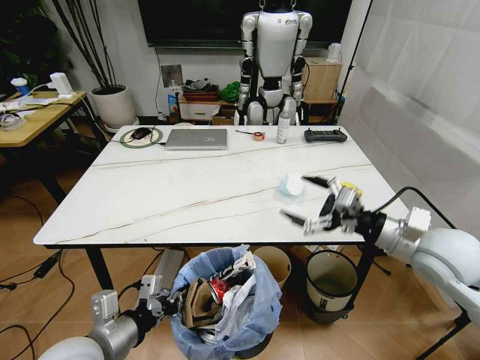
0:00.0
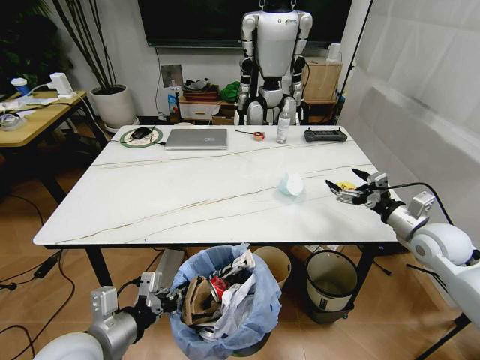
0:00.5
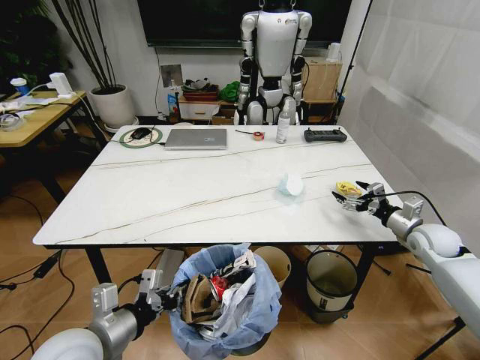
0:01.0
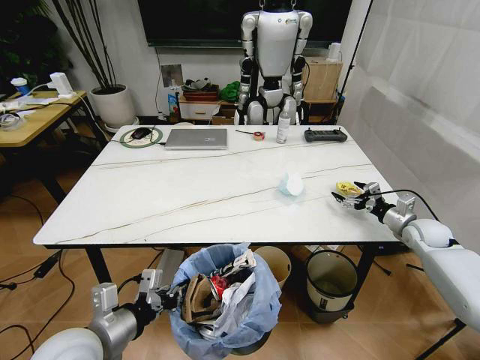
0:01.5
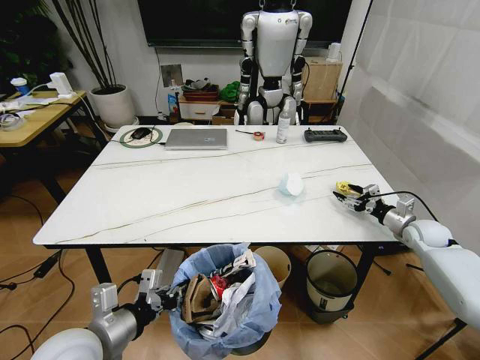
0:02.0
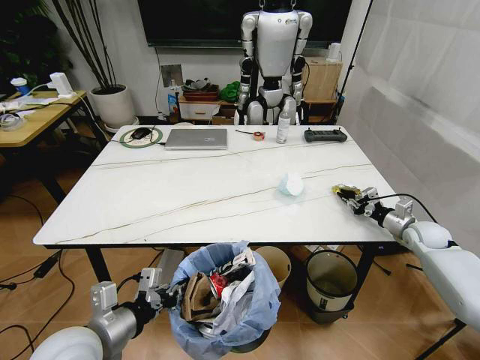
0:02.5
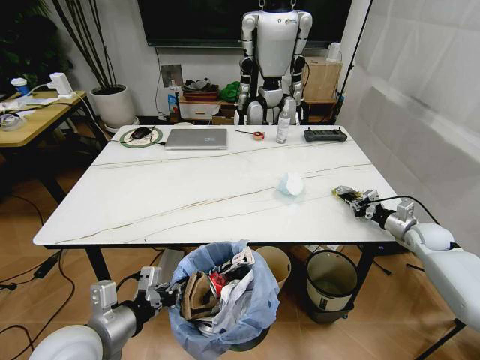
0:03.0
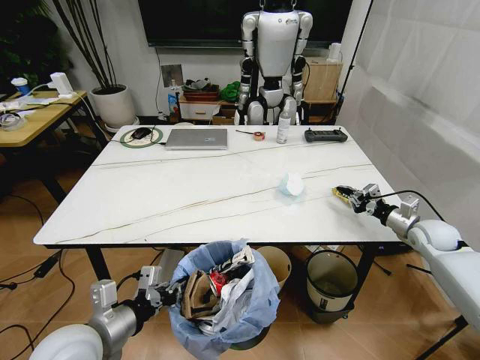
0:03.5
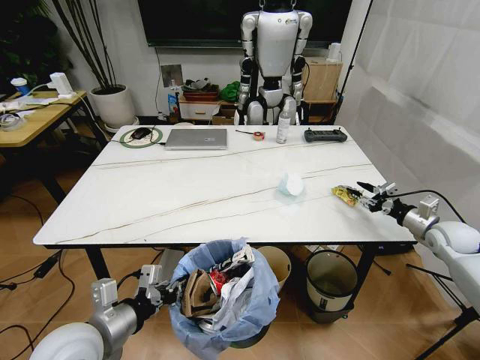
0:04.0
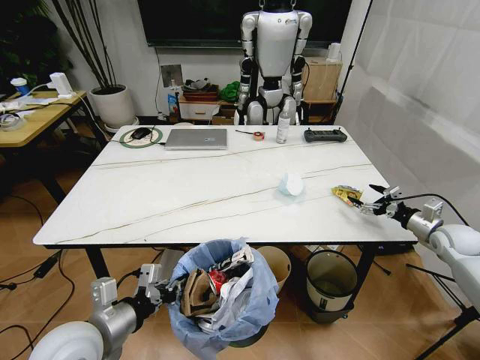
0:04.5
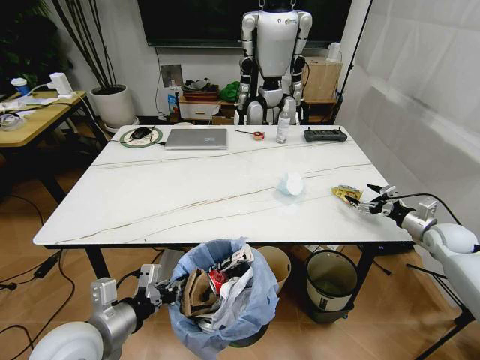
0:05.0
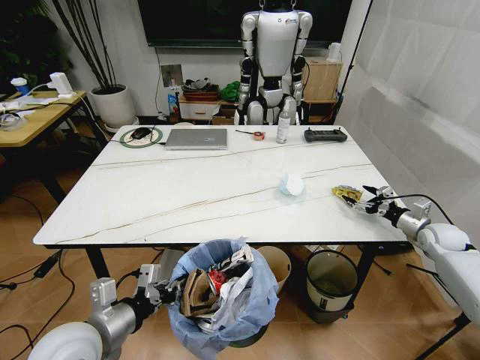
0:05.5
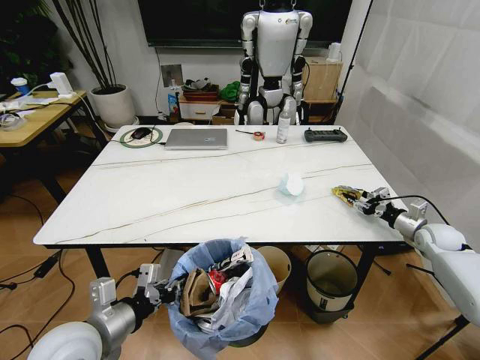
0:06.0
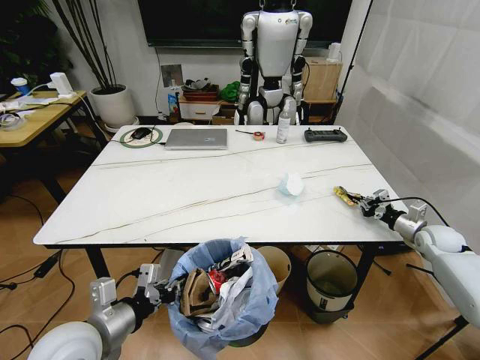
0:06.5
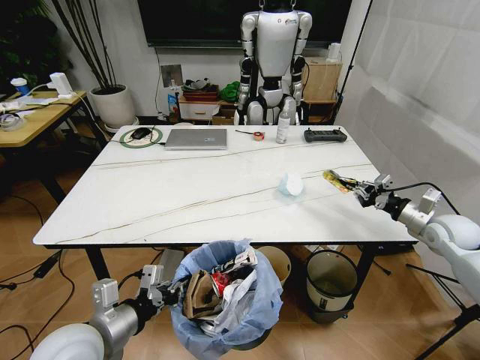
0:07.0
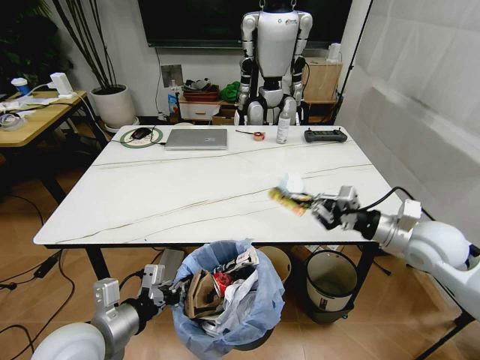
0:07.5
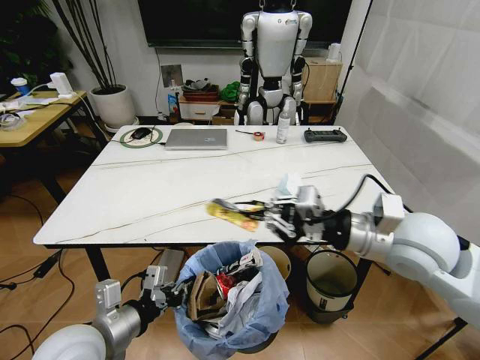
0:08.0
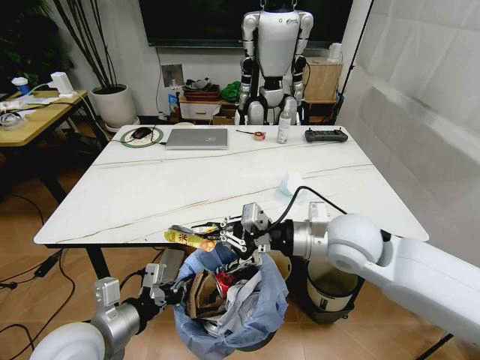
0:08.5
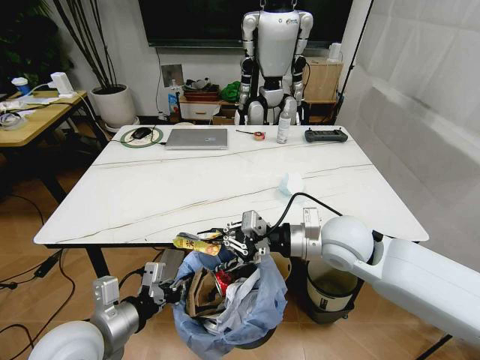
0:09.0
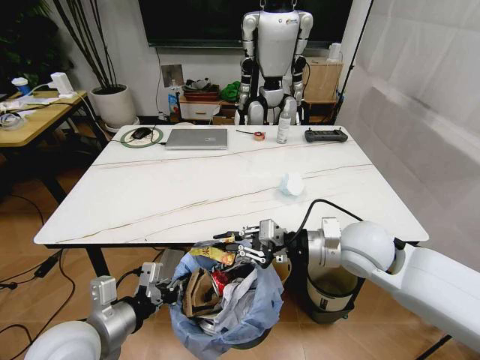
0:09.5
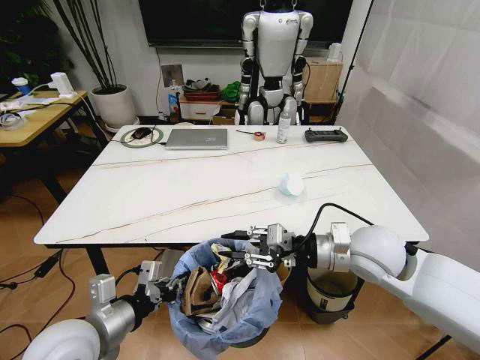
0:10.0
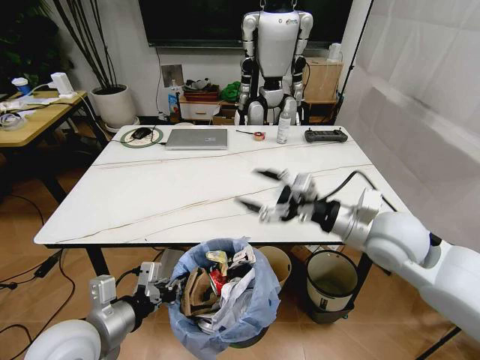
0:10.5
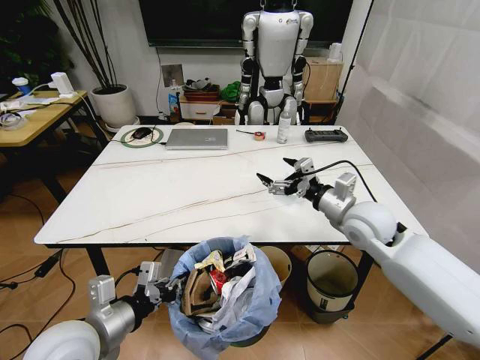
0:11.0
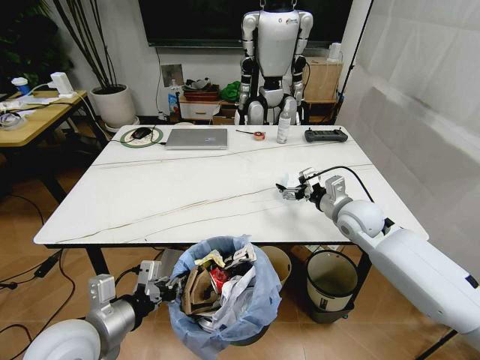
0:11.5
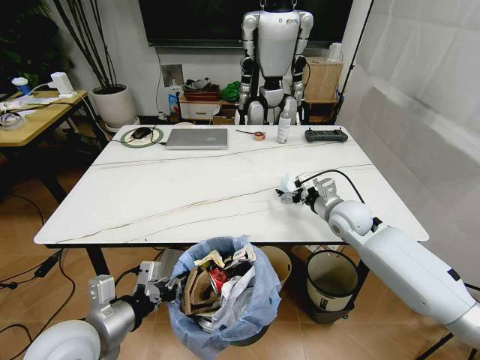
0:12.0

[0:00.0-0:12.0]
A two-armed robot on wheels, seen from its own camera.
Task of the whole recording: Pick up the trash bin and place the trash from the table into it.
0:00.0 to 0:02.0: The right gripper shifts about 30 cm downward, to the right and forward.
0:02.0 to 0:04.0: The right gripper changes place by roughly 5 cm, and closes, then reopens.
0:04.0 to 0:06.0: The right gripper ends up roughly 5 cm from where it was, and opens and closes again.
0:06.0 to 0:08.0: The right gripper heads to the left, upward and backward, covering some 40 cm, and closes.
0:08.0 to 0:10.0: The right gripper is displaced downward by about 10 cm.
0:10.0 to 0:12.0: The right gripper is displaced forward and downward by approximately 15 cm, and opens its fingers.

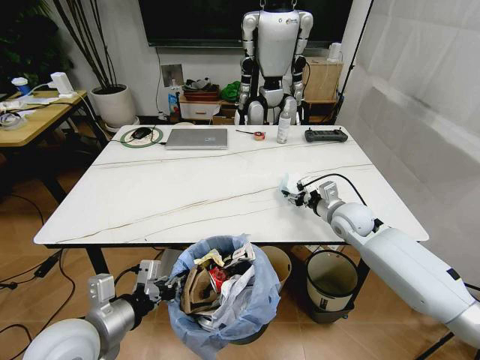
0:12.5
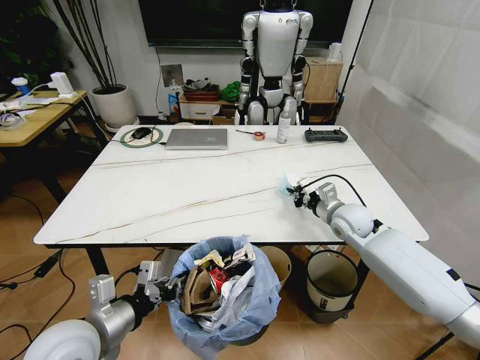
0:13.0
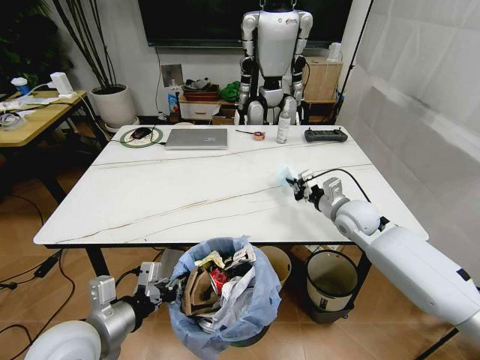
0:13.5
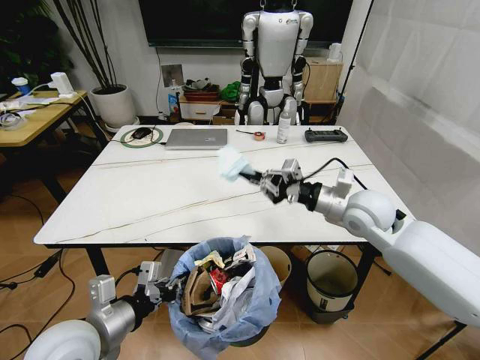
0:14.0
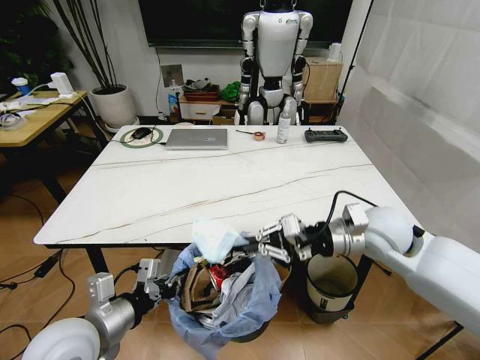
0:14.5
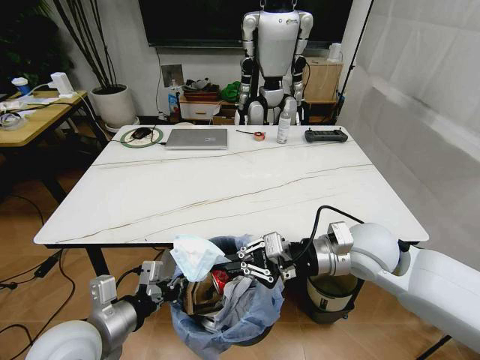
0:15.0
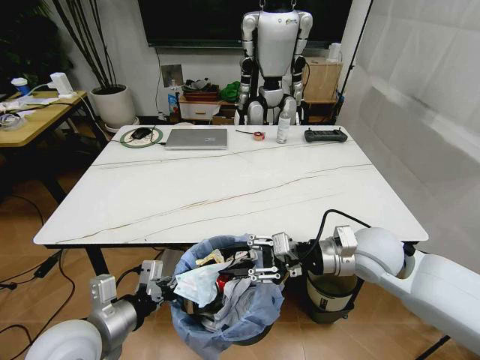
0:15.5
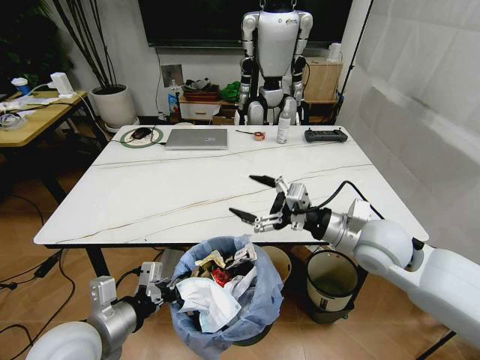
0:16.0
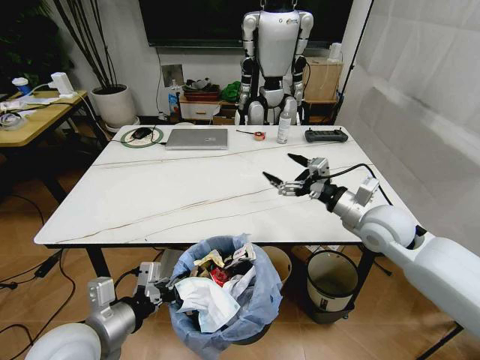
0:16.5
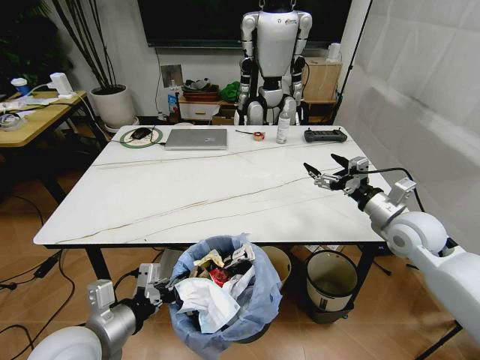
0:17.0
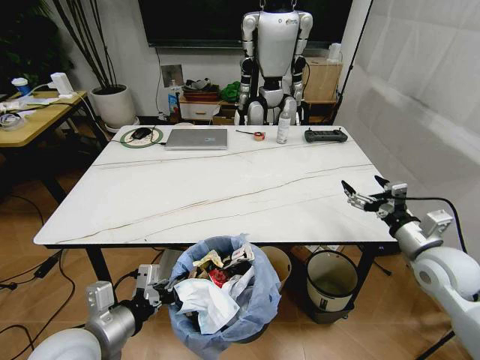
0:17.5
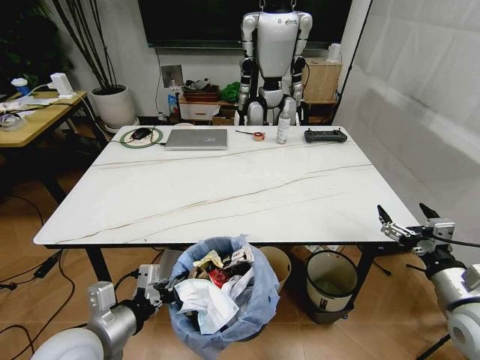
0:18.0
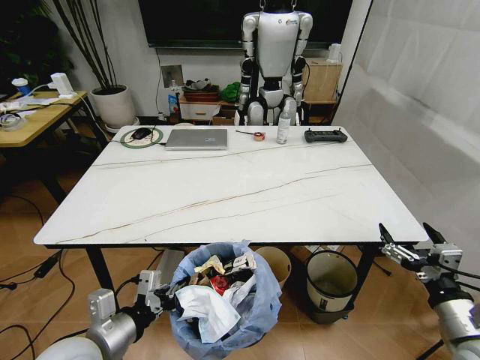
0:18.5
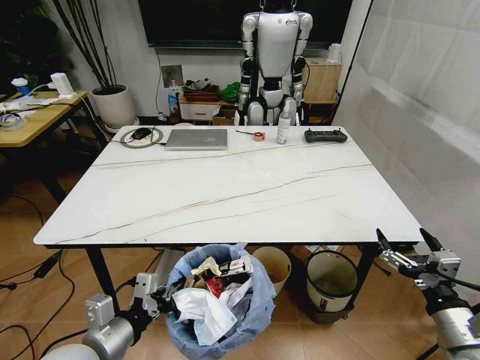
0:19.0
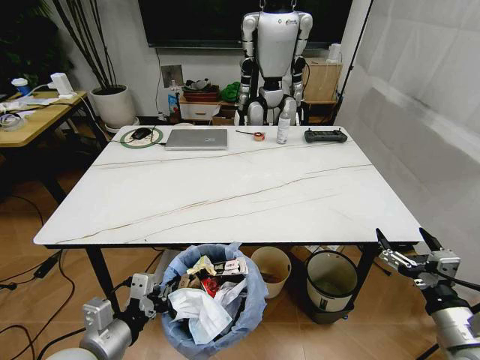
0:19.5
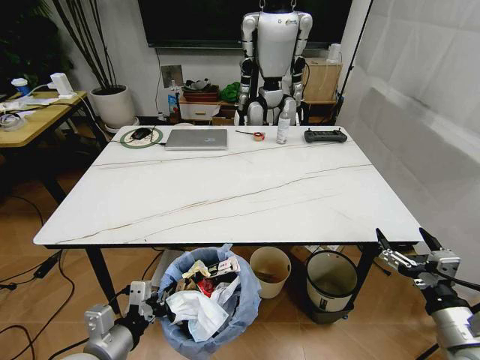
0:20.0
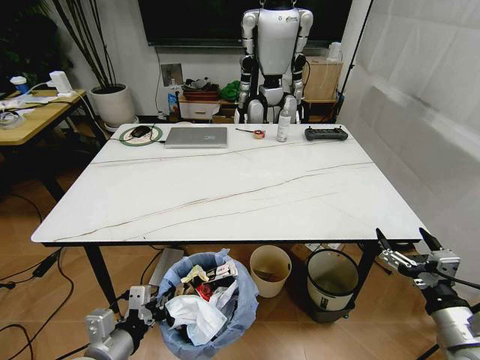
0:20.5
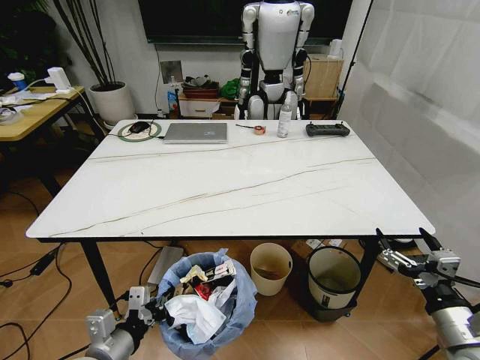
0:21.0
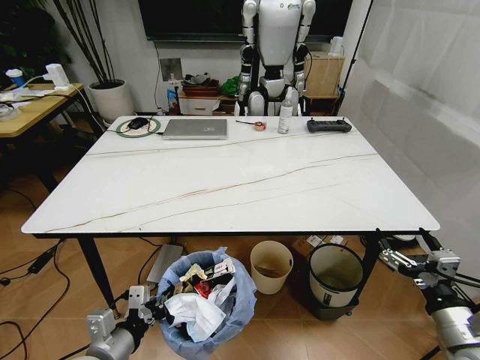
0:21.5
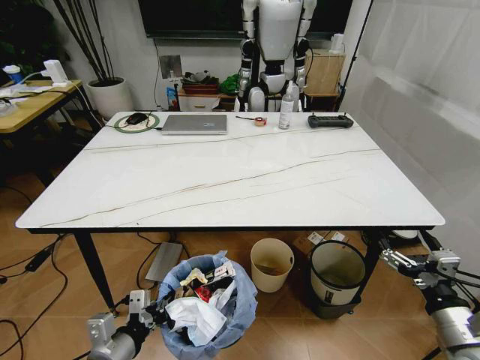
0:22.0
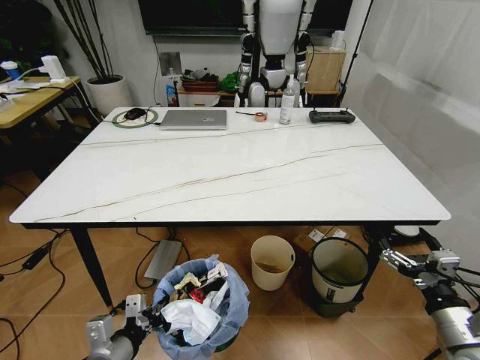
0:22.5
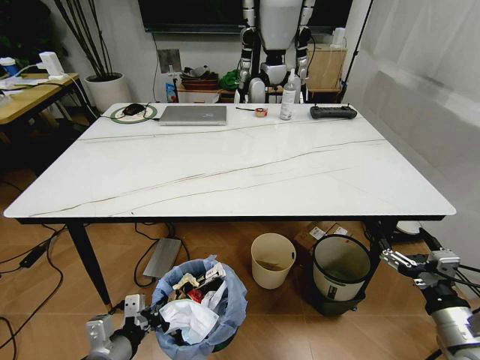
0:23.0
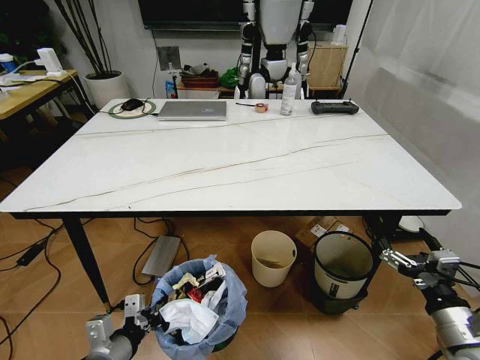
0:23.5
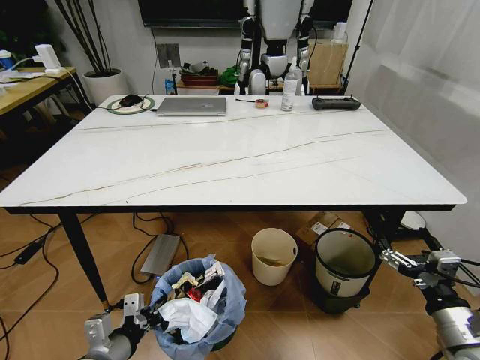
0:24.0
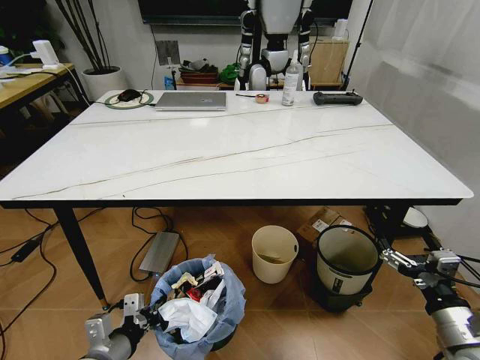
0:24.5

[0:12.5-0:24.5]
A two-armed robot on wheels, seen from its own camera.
Task of the whole recording: Pick up the trash bin and place the trash from the table into it.
0:12.5 to 0:14.5: The right gripper is displaced upward and backward by about 15 cm, and closes up.
0:14.5 to 0:16.5: The right gripper opens up.
0:16.5 to 0:18.5: The right gripper goes roughly 25 cm backward and to the right.
0:18.5 to 0:20.5: The left gripper changes place by about 5 cm.

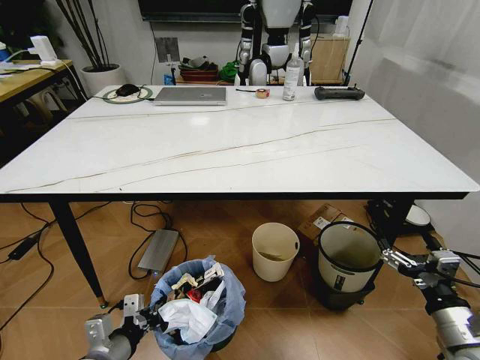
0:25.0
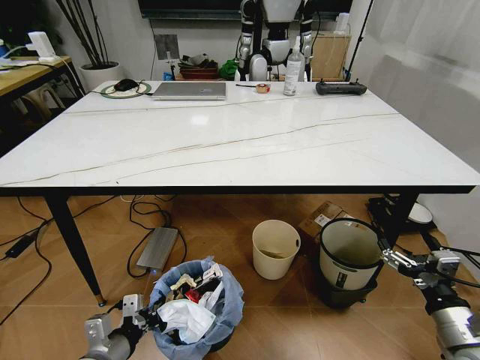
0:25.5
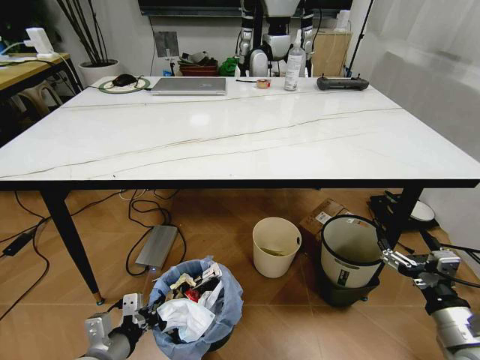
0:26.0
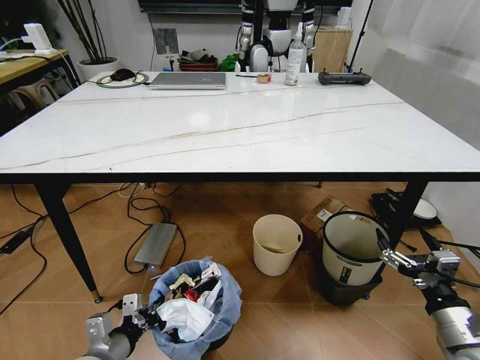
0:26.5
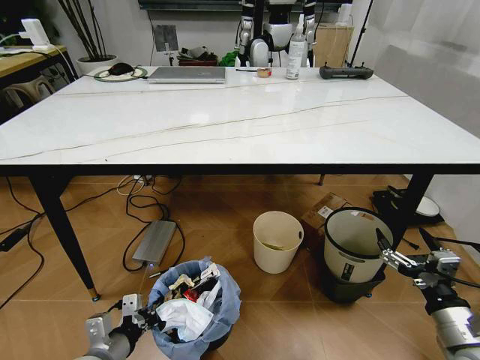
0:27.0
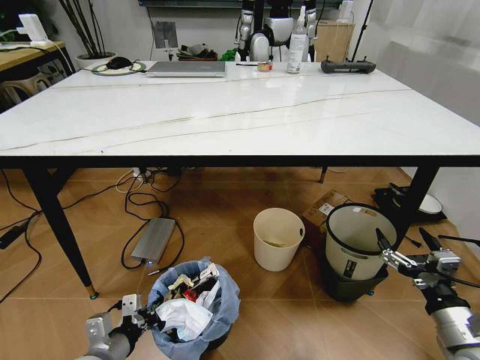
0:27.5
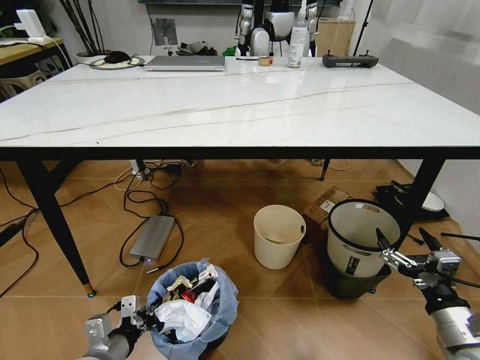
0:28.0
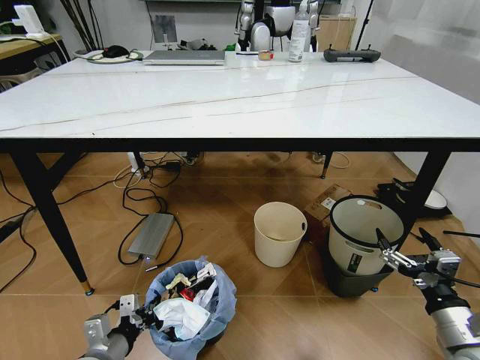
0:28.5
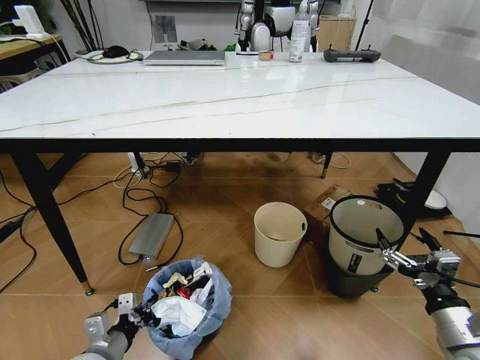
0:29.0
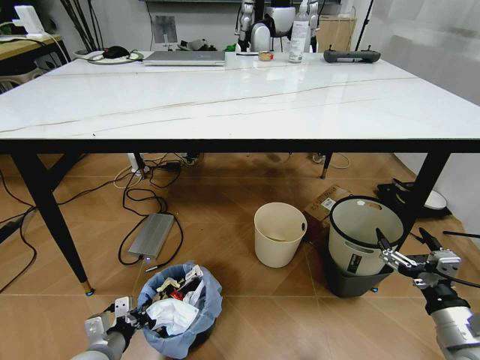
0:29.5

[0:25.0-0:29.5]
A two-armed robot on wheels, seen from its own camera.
Task of the whole recording: Pick up the trash bin and place the trash from the table into it.
0:27.0 to 0:29.5: The left gripper moves downward, about 5 cm.
